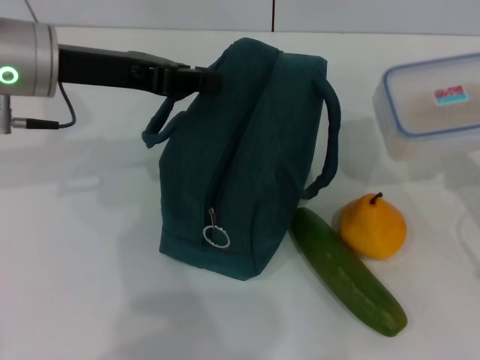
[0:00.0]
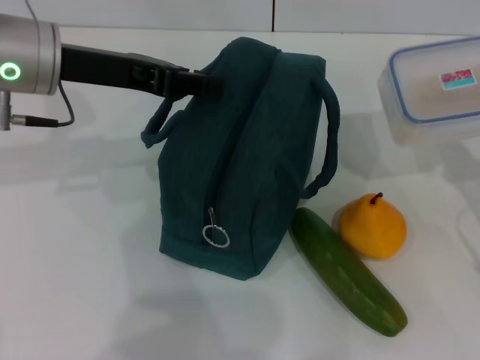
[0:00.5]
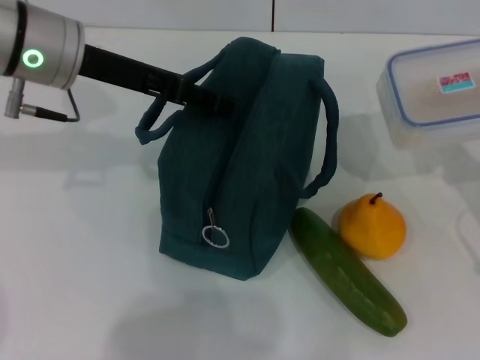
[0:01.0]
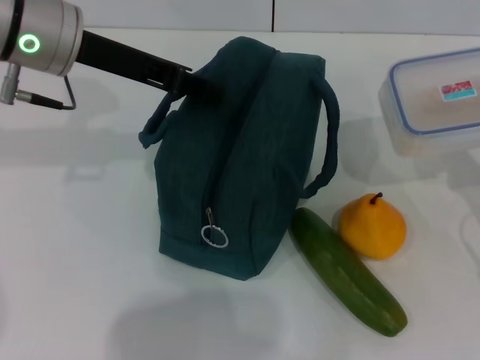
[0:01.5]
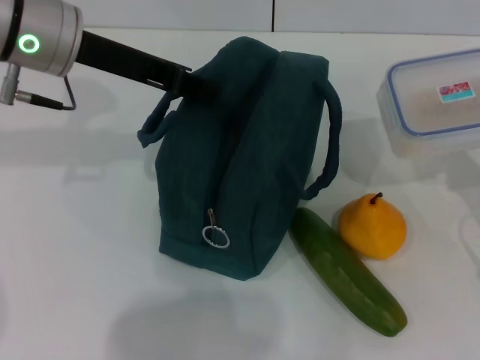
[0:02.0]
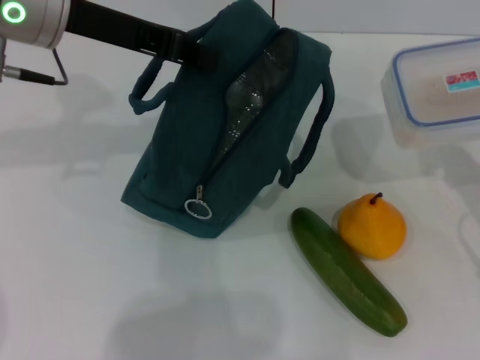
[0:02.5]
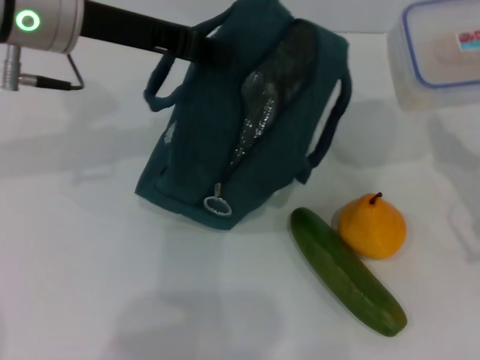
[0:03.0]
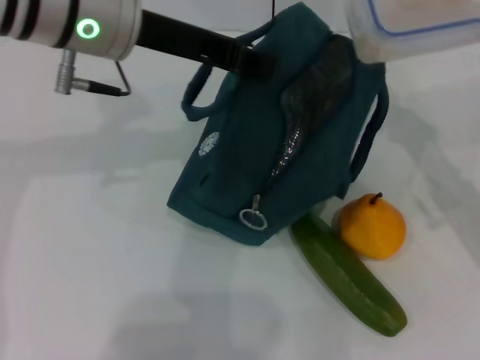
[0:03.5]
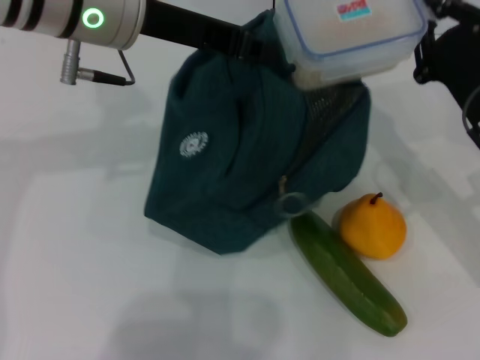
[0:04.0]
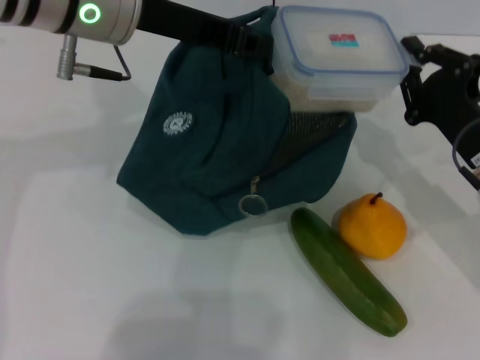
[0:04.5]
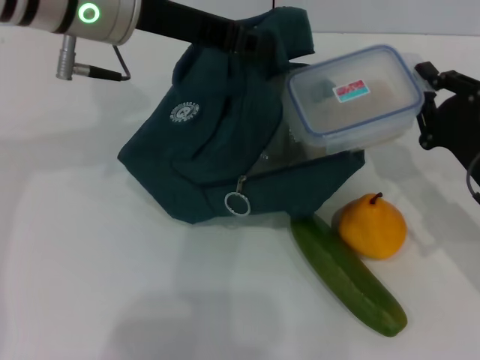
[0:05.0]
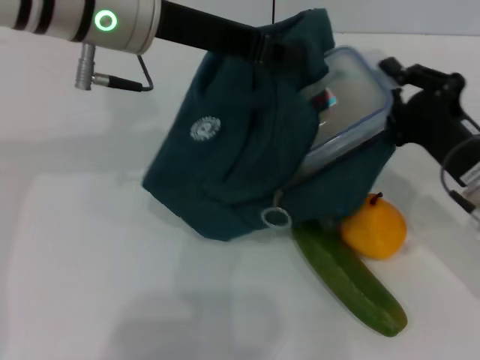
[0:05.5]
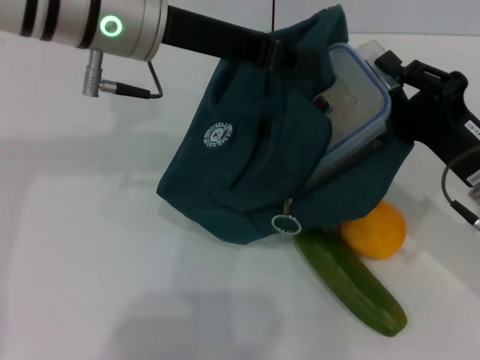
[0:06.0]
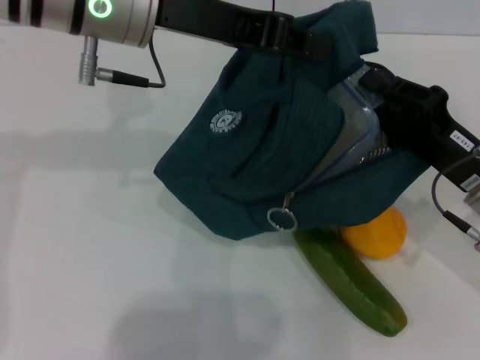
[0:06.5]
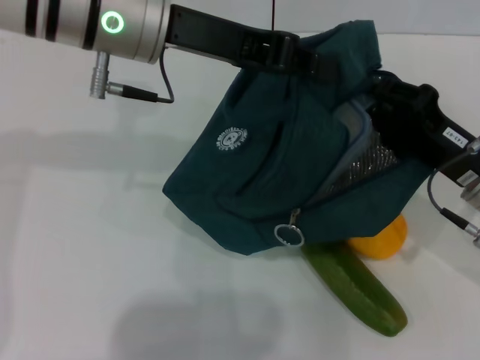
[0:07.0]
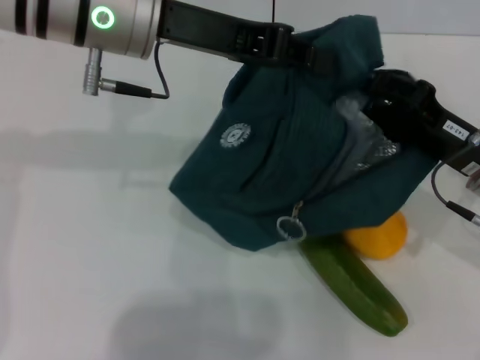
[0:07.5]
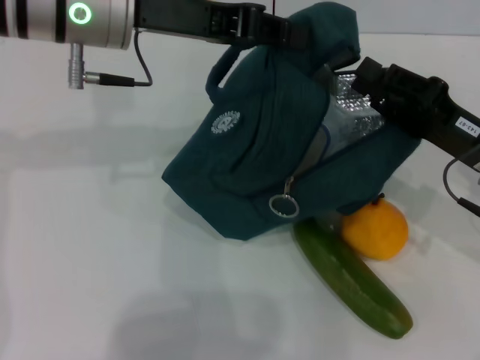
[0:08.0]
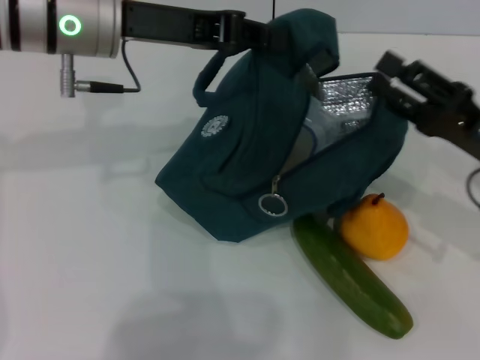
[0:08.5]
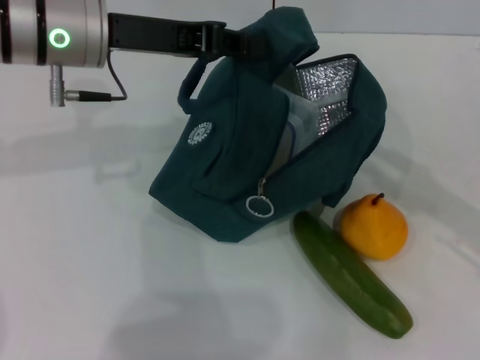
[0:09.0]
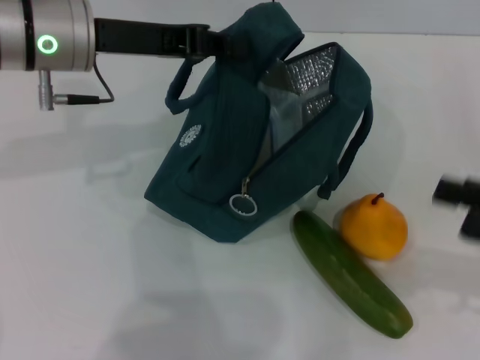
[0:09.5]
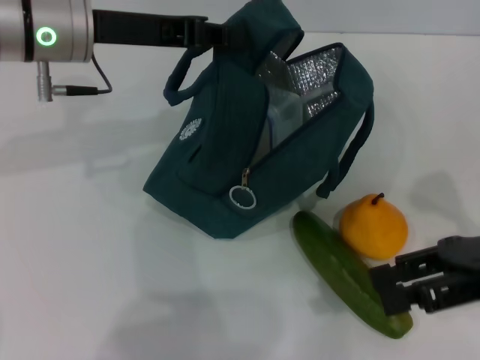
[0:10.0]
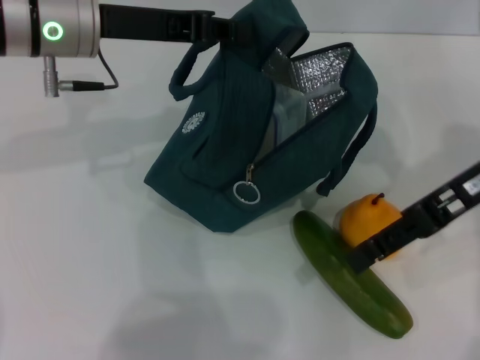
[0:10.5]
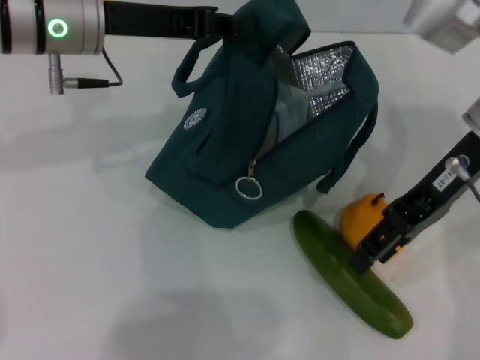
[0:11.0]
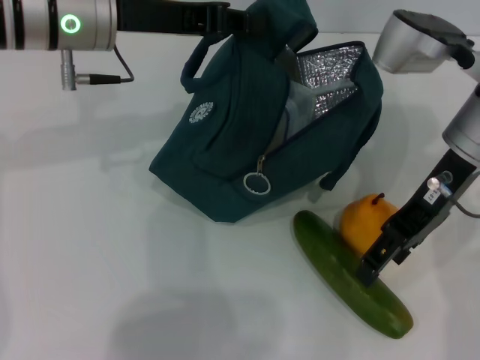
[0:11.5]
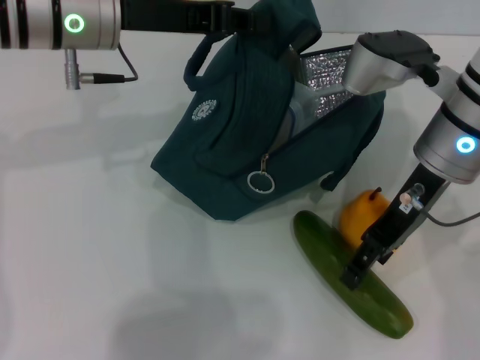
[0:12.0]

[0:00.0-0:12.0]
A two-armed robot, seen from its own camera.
Step, 0:00.0 to 0:07.5: Place the lunch box into the lunch bag with your right hand.
0:00.0 to 0:02.0: The left gripper opens, then closes once more.
0:02.0 to 0:04.0: The left gripper is displaced to the right by roughly 5 cm, while the right gripper heads to the left and forward, covering roughly 10 cm.
0:08.0 to 0:10.0: The right gripper is displaced upward by approximately 5 cm, while the left gripper shifts by some 5 cm.
0:10.0 to 0:12.0: The right gripper shifts about 15 cm to the left and forward.

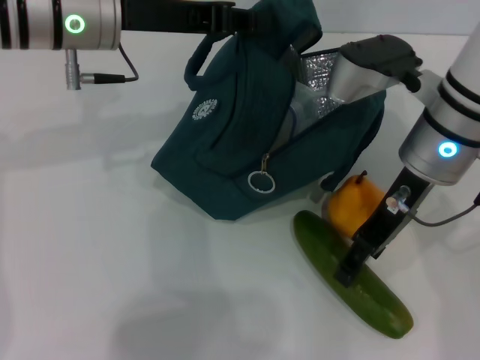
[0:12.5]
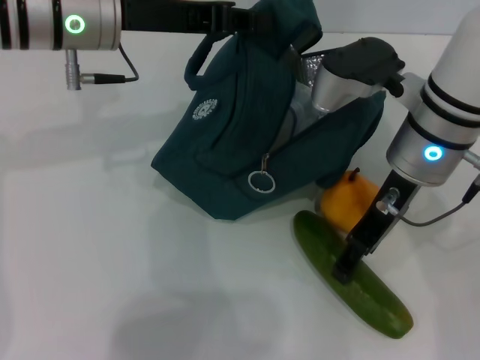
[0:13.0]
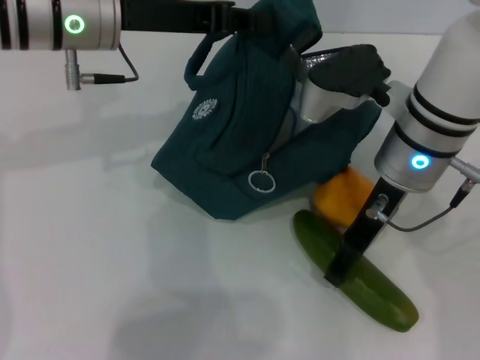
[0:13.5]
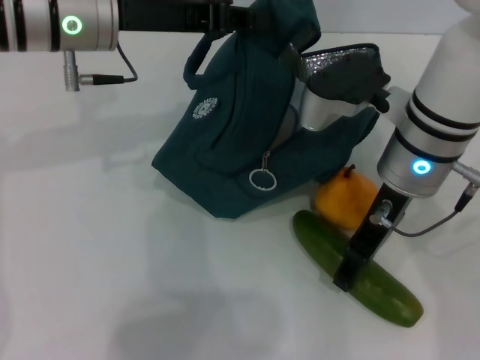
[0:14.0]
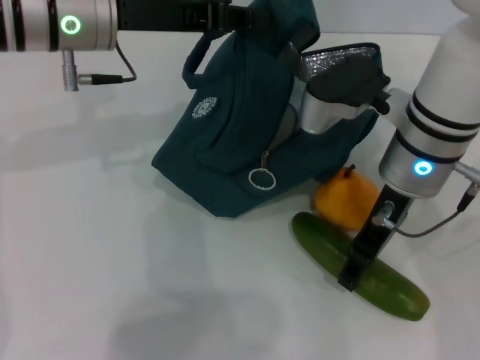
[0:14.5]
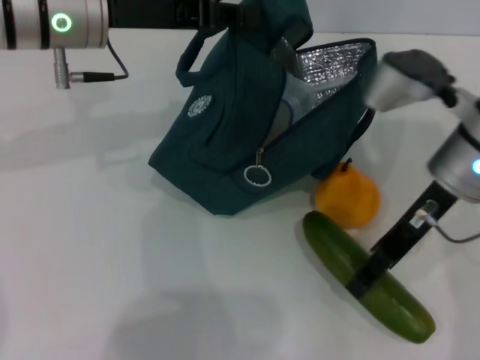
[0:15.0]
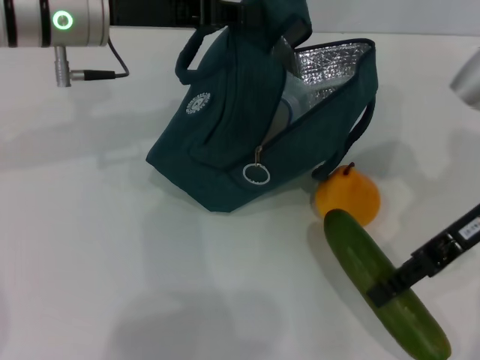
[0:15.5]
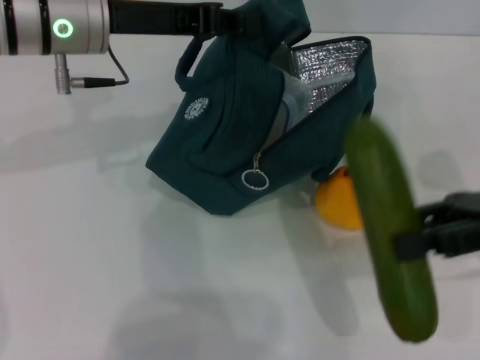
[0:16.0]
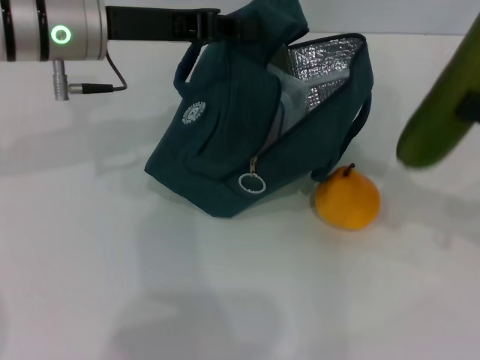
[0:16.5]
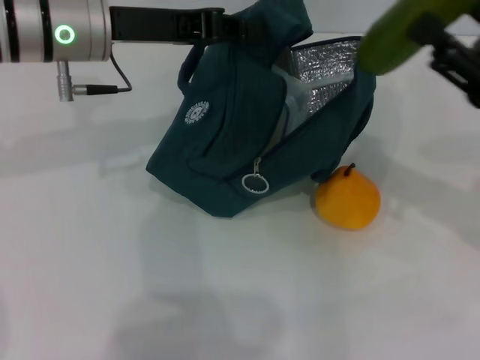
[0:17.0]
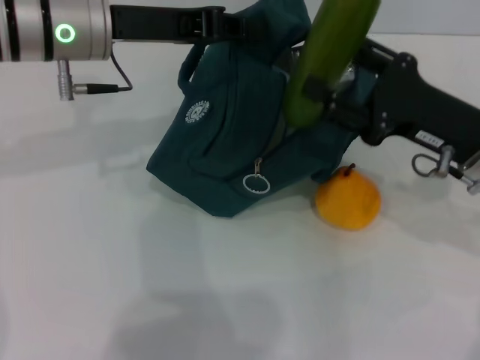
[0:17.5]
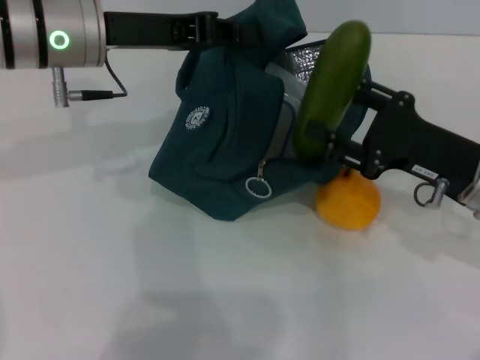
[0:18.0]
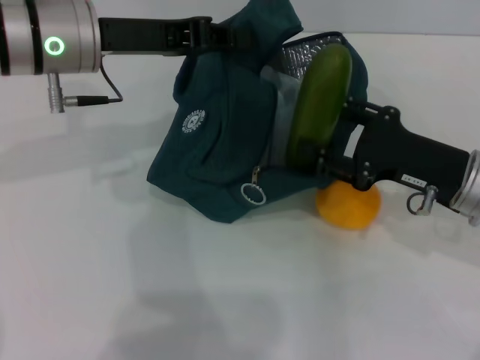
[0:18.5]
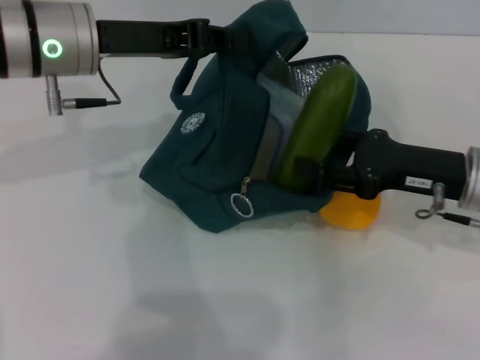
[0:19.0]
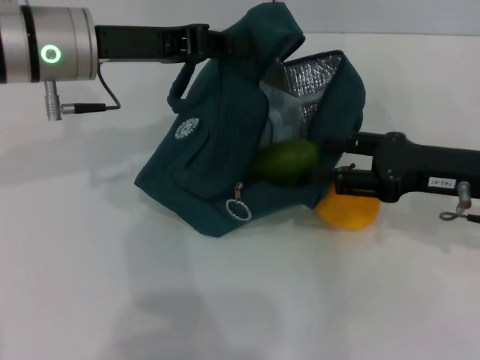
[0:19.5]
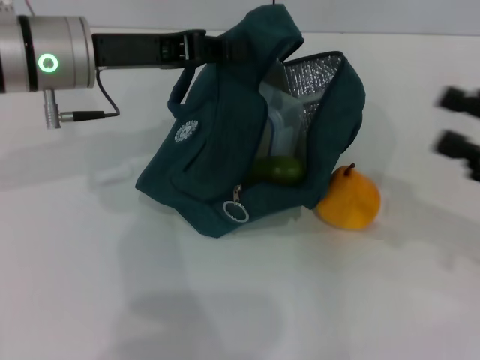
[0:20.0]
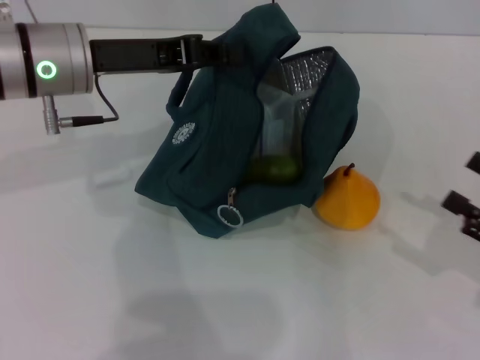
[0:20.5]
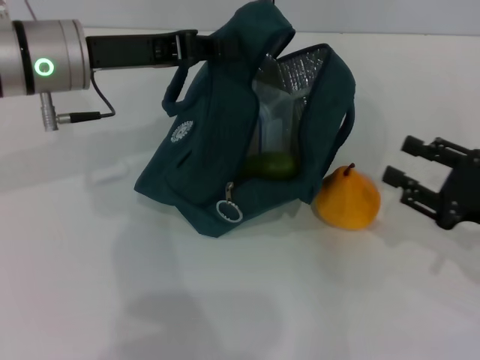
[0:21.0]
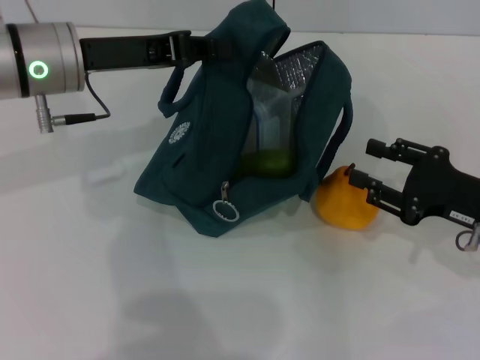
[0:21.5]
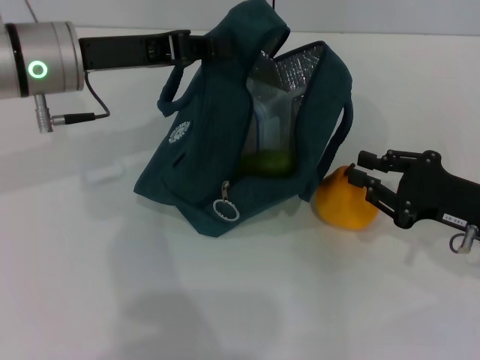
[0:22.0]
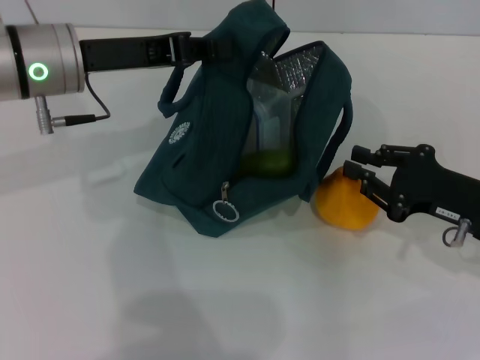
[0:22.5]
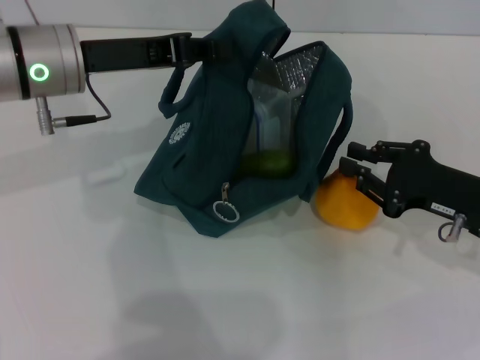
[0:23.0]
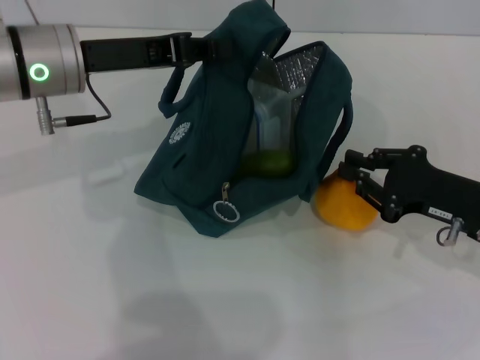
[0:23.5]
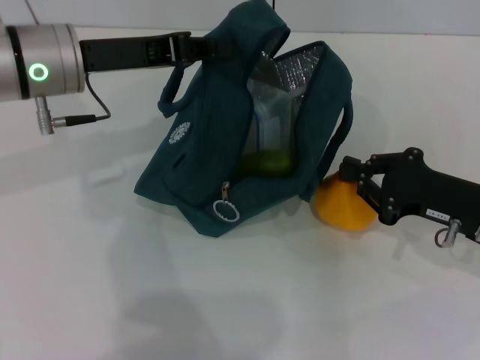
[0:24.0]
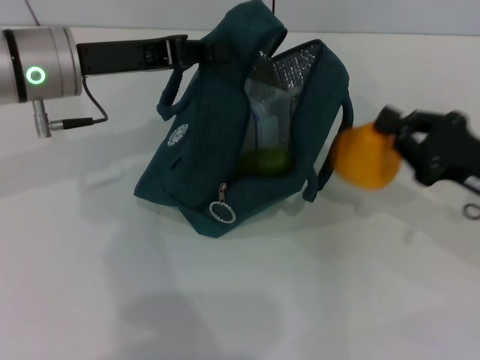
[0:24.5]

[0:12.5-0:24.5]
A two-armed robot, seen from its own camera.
Step, 0:15.0 to 0:19.5: Put the cucumber into the lunch bag with your right hand.
Step, 0:20.0 to 0:23.5: Grab the pear with your right hand.
0:12.5 to 0:14.5: There are only small adjustments of the grippers.
0:14.5 to 0:16.5: The right gripper shifts some 20 cm to the right.
0:16.5 to 0:18.5: The right gripper goes roughly 15 cm to the left and downward.
0:18.5 to 0:20.5: The right gripper goes approximately 15 cm to the right and backward.
0:20.5 to 0:22.5: The right gripper travels to the left and forward by about 10 cm, and closes its fingers.
0:22.5 to 0:24.5: The grippers make only small movements.

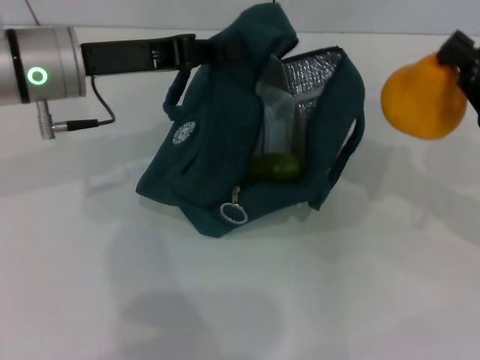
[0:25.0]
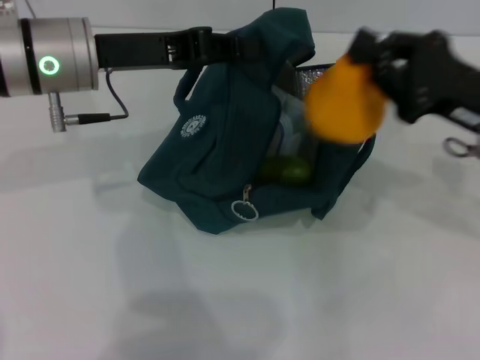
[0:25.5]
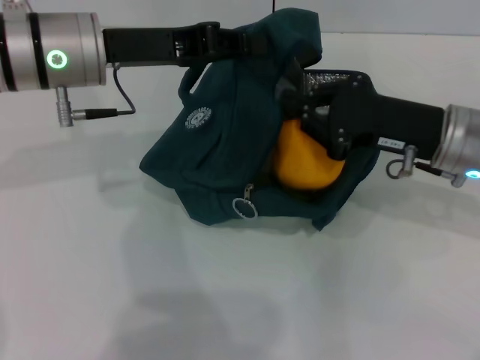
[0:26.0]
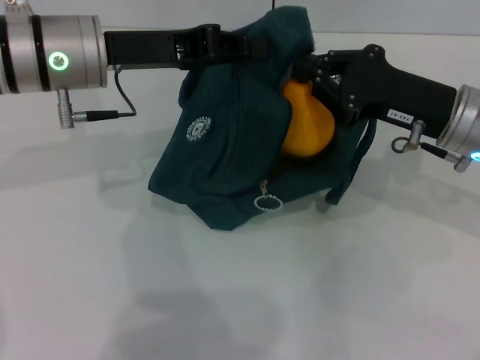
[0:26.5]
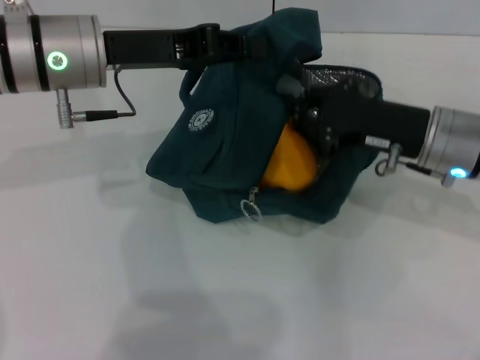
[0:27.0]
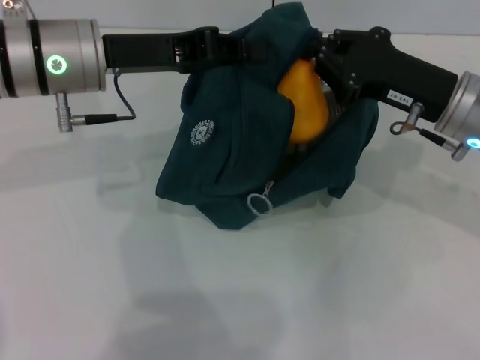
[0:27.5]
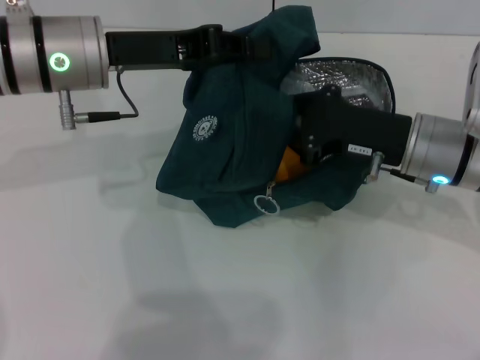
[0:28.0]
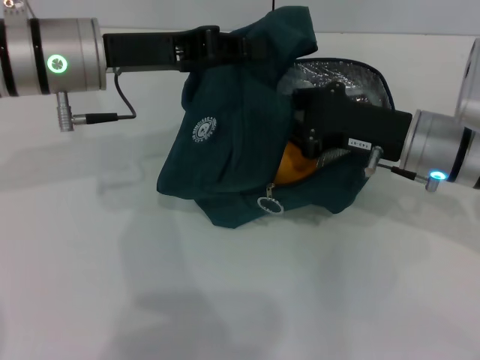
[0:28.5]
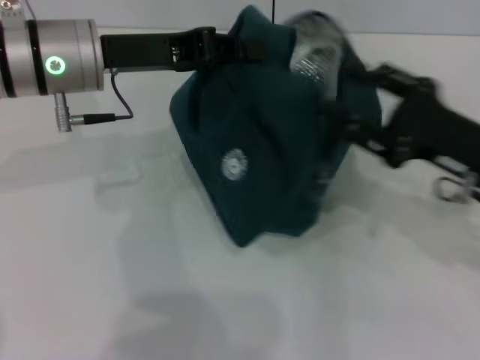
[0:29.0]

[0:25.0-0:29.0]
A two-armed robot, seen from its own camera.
Step, 0:25.0 to 0:28.5: Secure the lunch bag with your left hand.
0:25.0 to 0:27.0: The right gripper shifts about 10 cm to the left and forward.
0:27.0 to 0:29.0: The right gripper moves some 5 cm, and opens.
